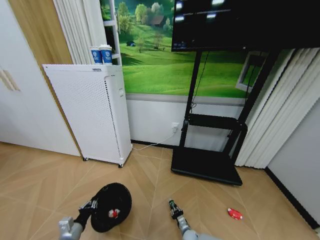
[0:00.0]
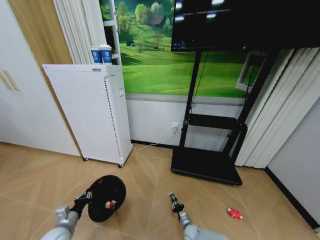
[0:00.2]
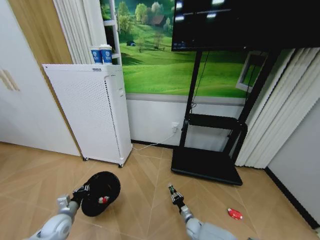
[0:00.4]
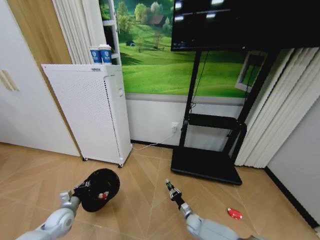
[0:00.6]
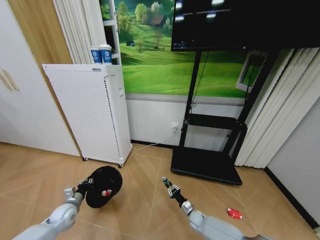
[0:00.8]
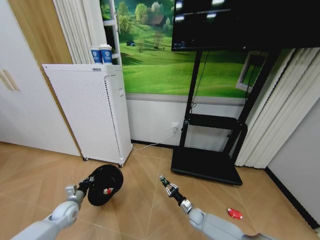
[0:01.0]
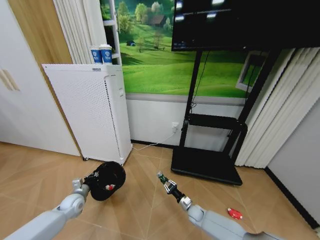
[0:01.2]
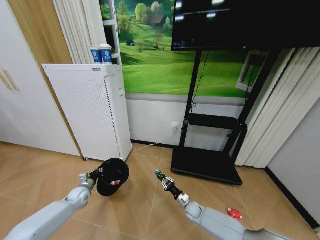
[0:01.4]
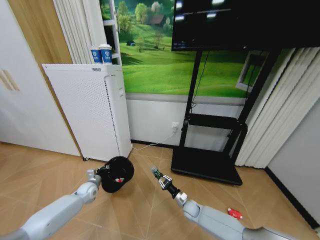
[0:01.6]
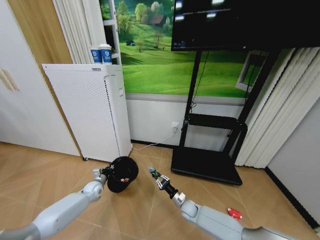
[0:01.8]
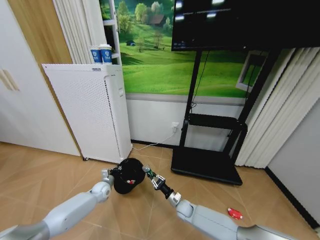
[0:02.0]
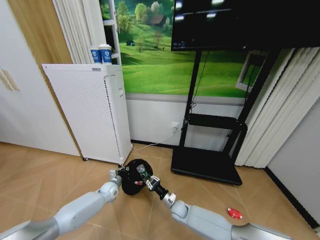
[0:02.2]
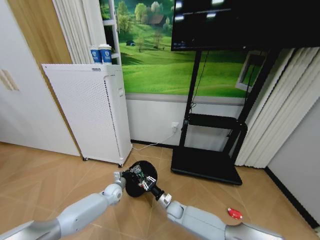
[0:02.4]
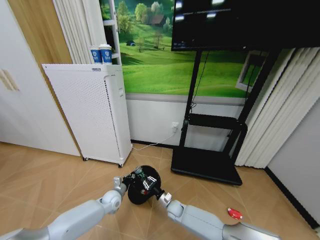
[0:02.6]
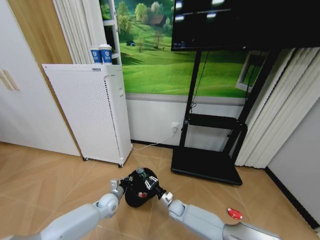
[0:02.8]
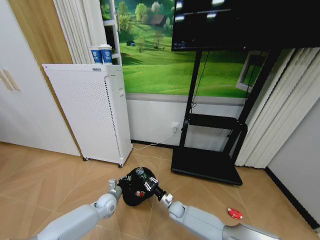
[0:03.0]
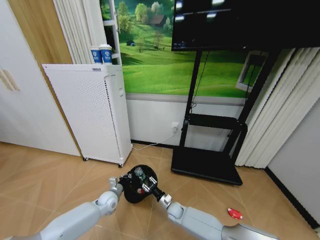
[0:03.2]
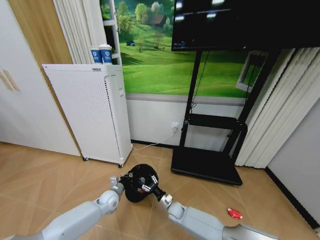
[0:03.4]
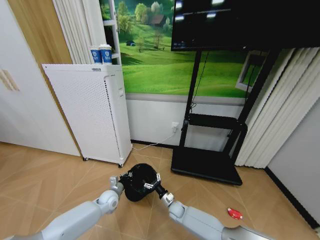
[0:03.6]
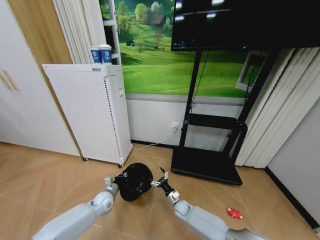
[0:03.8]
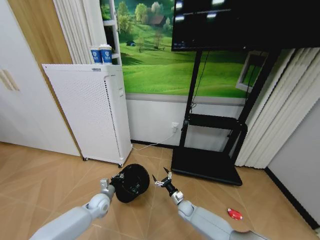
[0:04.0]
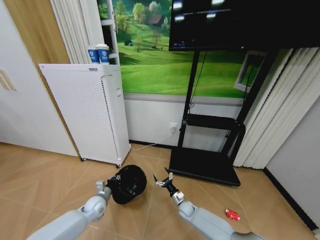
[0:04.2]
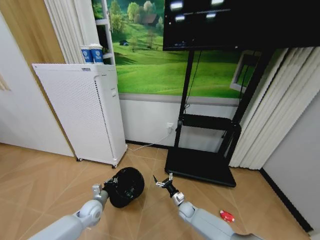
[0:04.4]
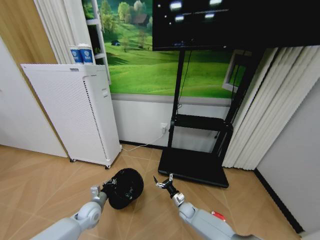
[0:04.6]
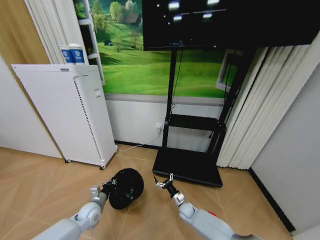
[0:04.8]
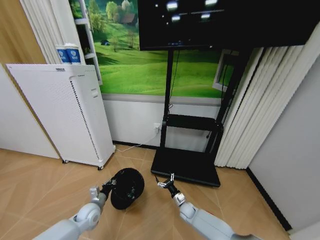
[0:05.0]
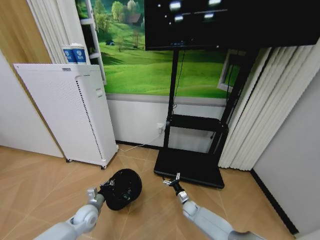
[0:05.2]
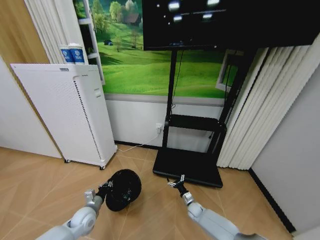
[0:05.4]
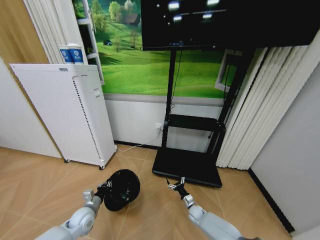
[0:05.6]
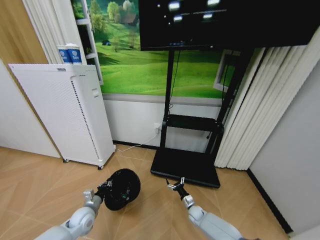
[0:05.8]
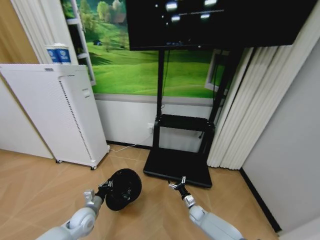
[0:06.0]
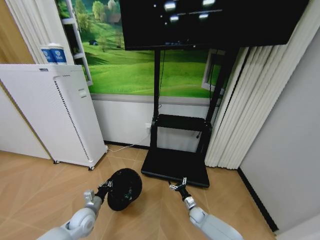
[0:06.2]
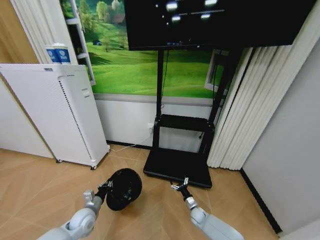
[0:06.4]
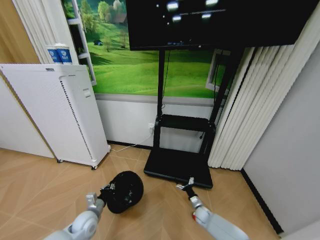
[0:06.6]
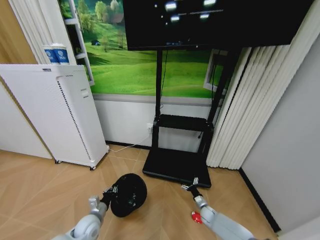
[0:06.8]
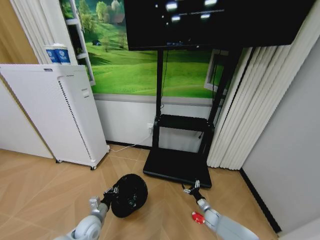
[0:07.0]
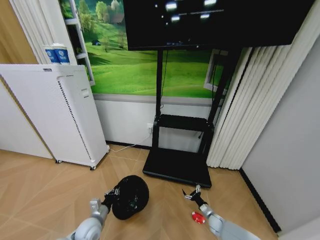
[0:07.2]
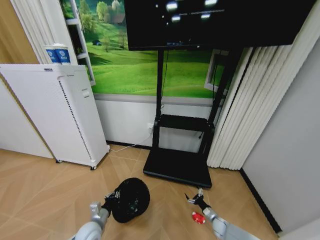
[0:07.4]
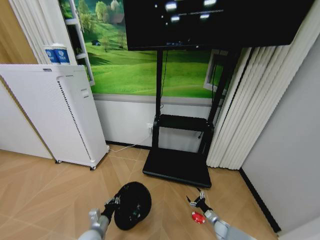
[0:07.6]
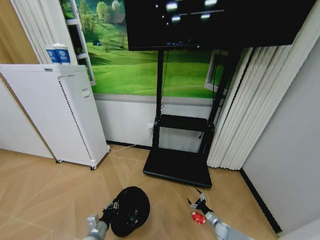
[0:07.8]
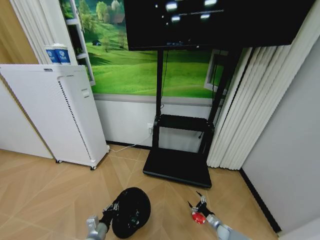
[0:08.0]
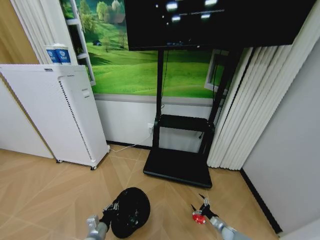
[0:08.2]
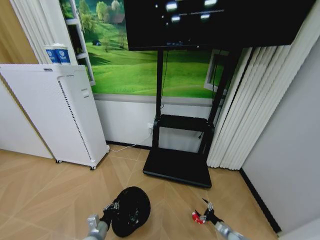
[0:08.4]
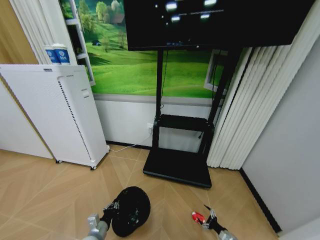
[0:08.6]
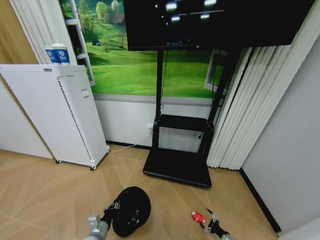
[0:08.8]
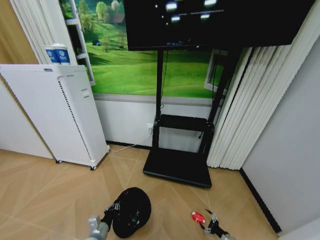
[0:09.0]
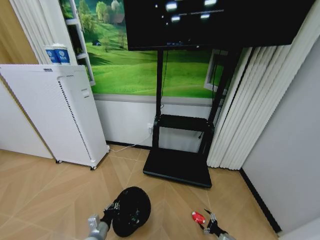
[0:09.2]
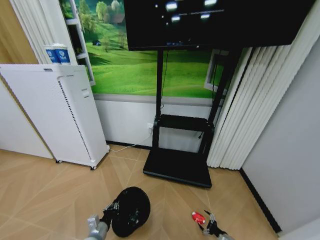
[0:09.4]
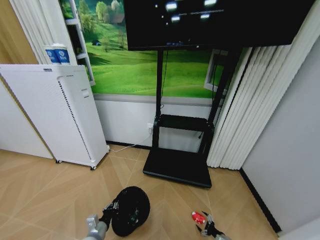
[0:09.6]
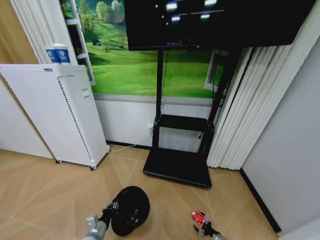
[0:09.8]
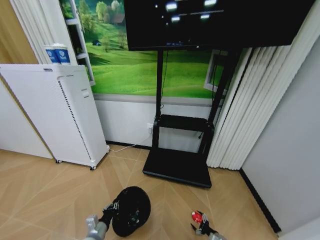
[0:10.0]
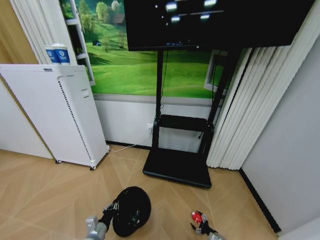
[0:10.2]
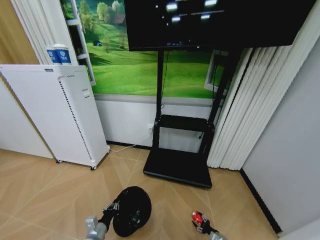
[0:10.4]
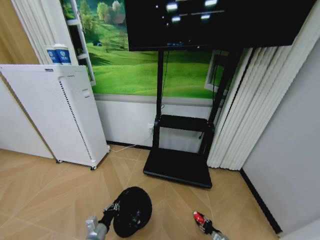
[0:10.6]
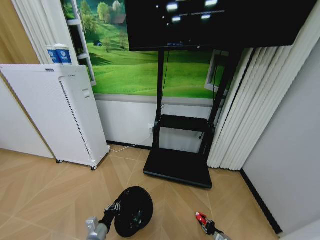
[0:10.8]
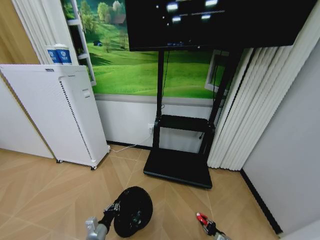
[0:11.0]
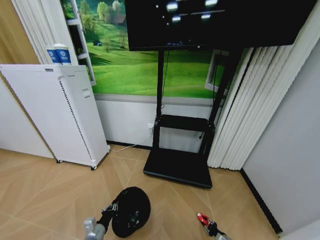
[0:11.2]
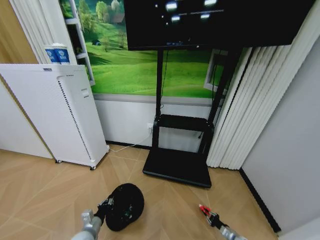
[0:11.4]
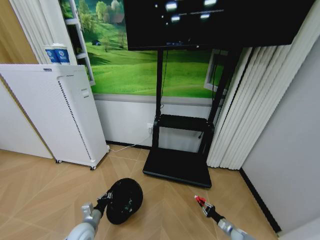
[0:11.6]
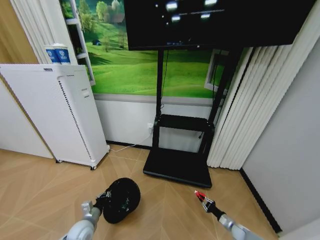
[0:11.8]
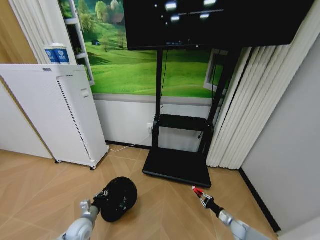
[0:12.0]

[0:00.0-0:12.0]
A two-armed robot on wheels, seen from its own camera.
Task of the whole recording: Pick up the trash bin and place the garbage on the floor into it.
0:00.0 to 0:01.6: The right gripper shifts approximately 15 cm upward and forward; the left gripper goes approximately 25 cm forward.
0:01.6 to 0:03.0: The left gripper travels to the right and backward by some 15 cm; the right gripper is displaced to the left by approximately 10 cm.
0:03.0 to 0:04.4: The left gripper heads to the left, covering about 5 cm, while the right gripper heads to the right, covering approximately 5 cm, and opens up.
0:04.4 to 0:06.0: The right gripper goes approximately 5 cm to the right.
0:06.0 to 0:07.6: The left gripper shifts about 10 cm backward and to the right; the right gripper heads to the right and backward, covering about 15 cm.
0:07.6 to 0:09.0: The right gripper travels backward and to the right by roughly 10 cm.
0:09.0 to 0:10.4: The right gripper moves roughly 5 cm.
0:10.4 to 0:12.0: The right gripper goes roughly 15 cm upward and forward, and closes its fingers. The left gripper travels forward and to the left by roughly 10 cm.

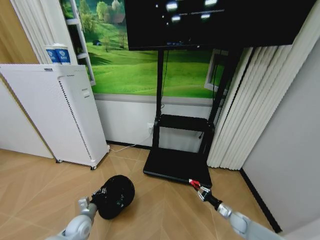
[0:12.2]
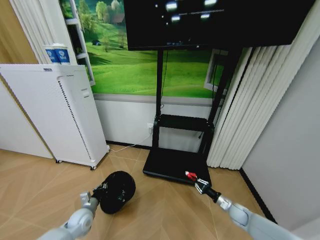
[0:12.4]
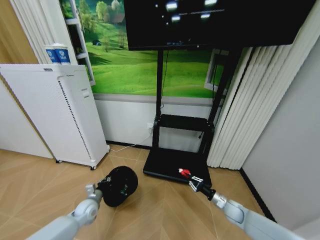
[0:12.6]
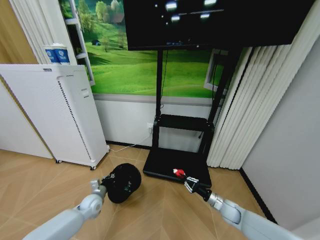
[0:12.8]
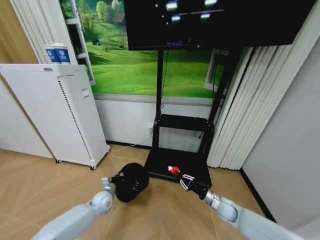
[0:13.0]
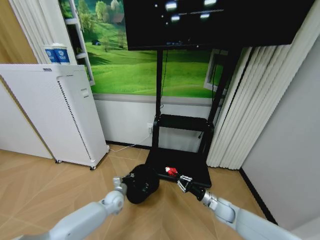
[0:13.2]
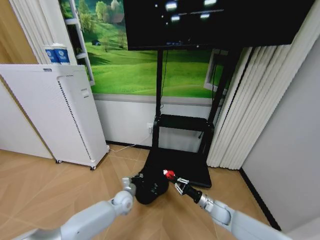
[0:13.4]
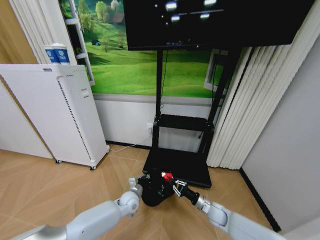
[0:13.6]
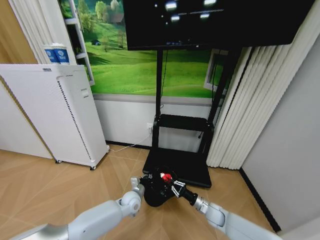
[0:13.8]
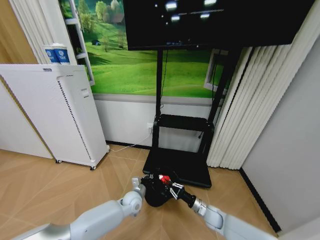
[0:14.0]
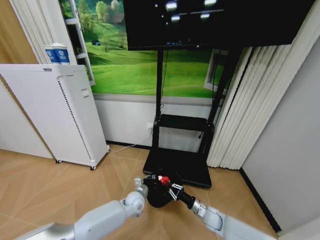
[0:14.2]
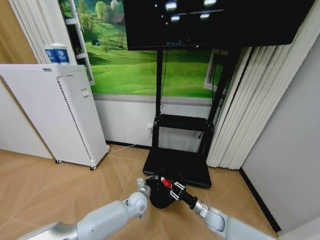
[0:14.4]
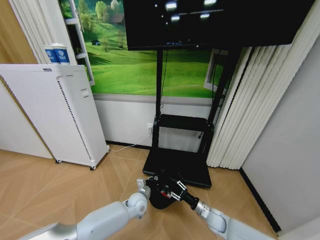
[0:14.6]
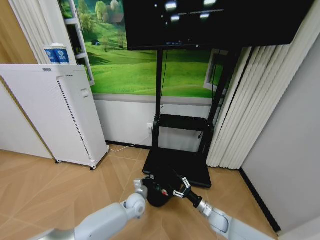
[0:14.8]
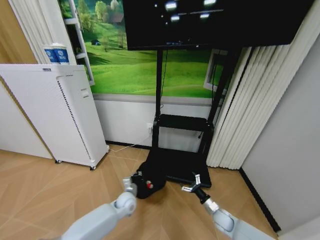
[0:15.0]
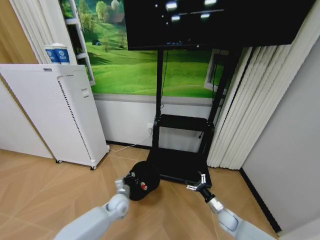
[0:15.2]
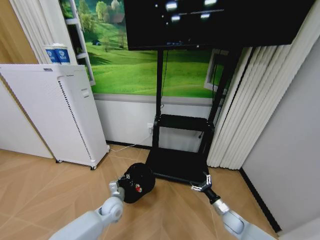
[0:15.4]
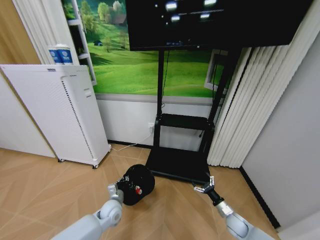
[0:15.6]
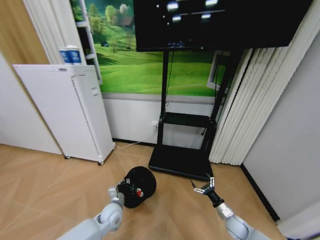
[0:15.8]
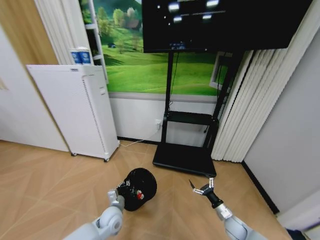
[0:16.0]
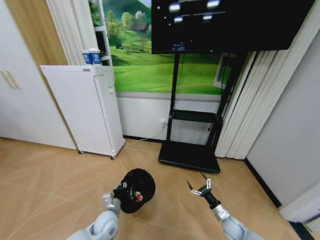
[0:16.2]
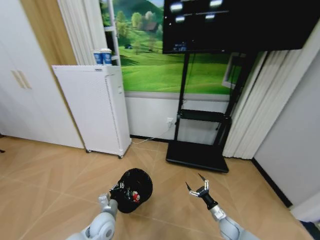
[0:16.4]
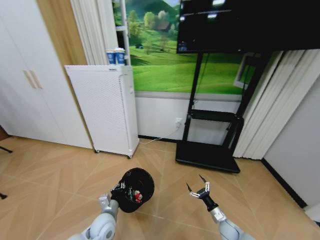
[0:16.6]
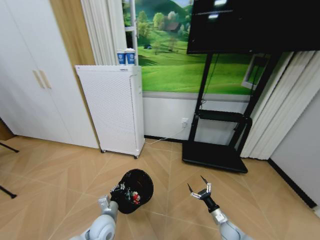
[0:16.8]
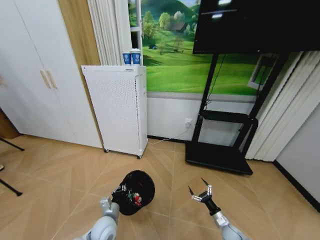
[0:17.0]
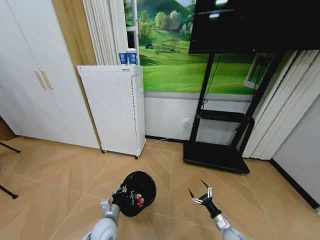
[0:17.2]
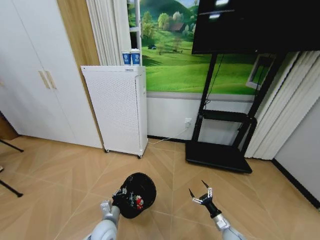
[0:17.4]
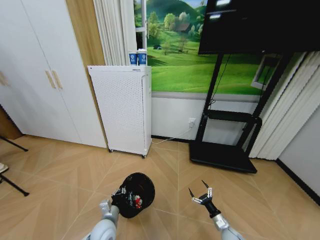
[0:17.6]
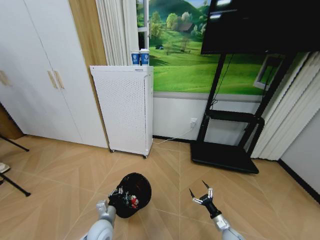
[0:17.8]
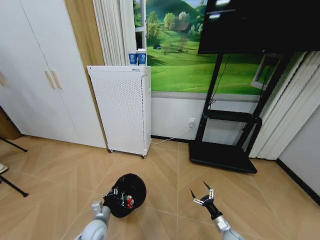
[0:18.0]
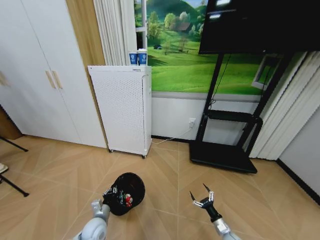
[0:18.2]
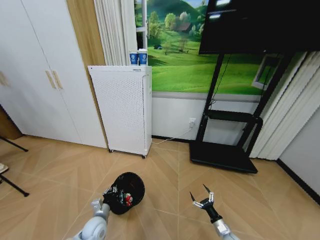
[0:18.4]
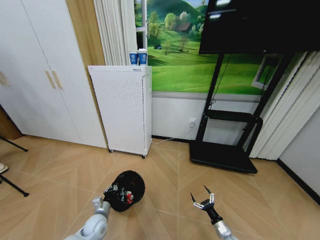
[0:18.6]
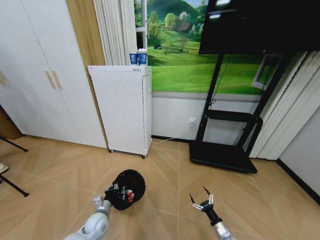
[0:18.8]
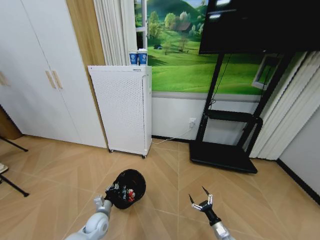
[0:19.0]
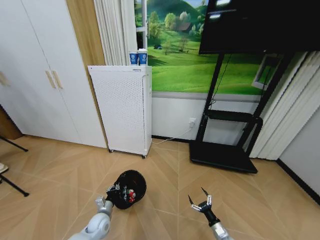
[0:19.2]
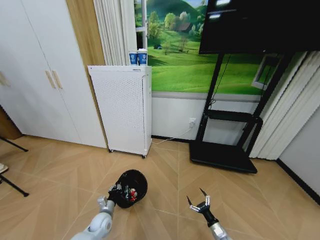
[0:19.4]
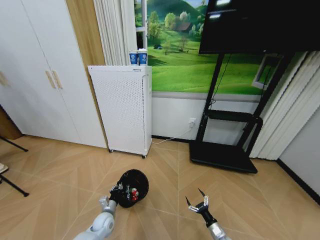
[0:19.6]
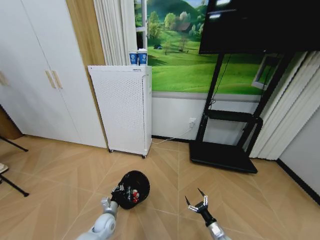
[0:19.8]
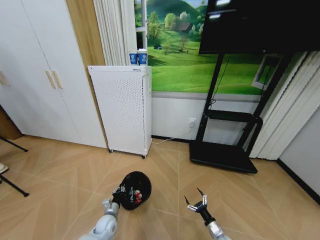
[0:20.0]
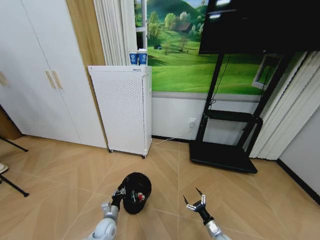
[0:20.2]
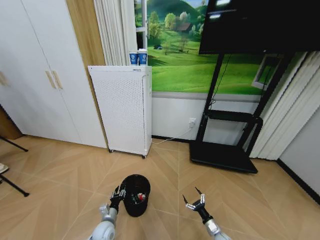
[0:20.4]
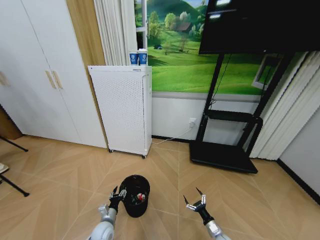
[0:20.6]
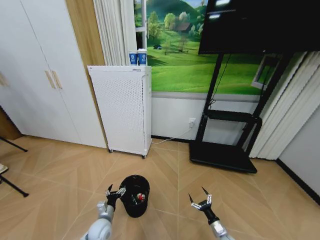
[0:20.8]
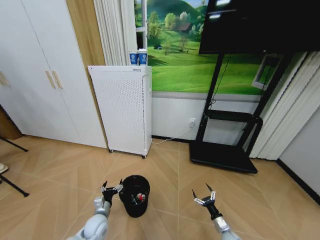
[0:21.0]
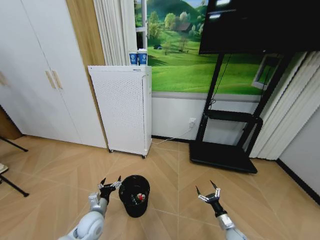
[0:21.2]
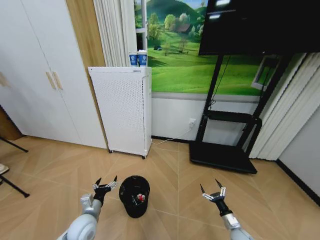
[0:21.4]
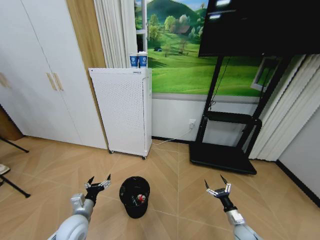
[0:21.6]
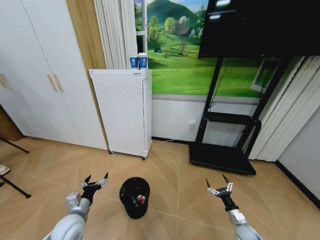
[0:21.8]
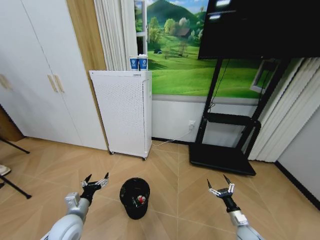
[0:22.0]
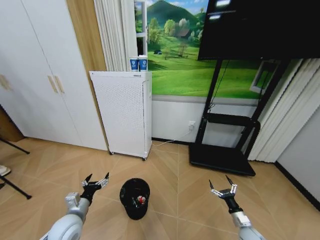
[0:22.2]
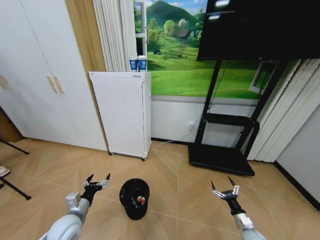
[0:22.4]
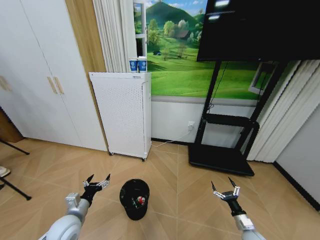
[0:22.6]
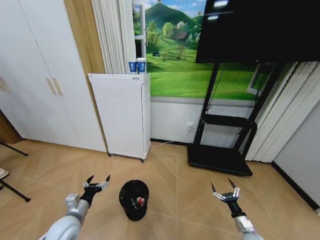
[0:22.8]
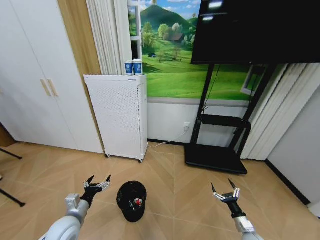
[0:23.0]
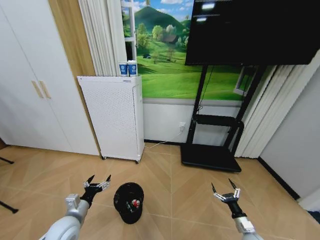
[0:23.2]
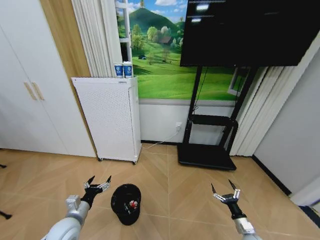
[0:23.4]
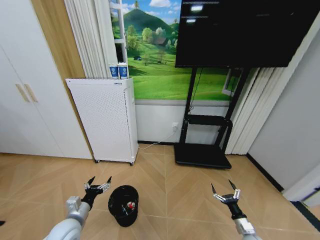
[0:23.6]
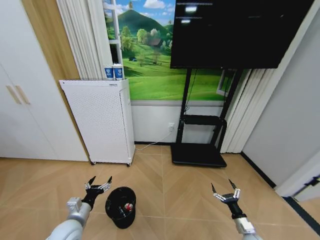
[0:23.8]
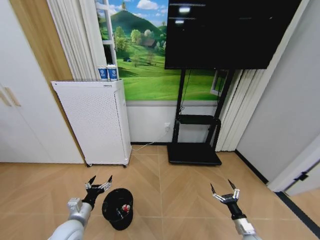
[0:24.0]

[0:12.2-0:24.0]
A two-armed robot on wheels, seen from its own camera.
Task of the whole recording: Pick up the trash bin and place the garbage on the floor into it.
0:12.2 to 0:13.6: The right gripper is displaced to the left and upward by approximately 15 cm, while the left gripper goes roughly 20 cm to the right.
0:13.6 to 0:15.2: The right gripper ends up approximately 5 cm from where it was, and opens its fingers.
0:15.2 to 0:16.6: The right gripper moves roughly 5 cm, while the left gripper moves backward and to the left, some 10 cm.
0:16.6 to 0:18.2: The left gripper heads to the left and downward, covering some 5 cm. The right gripper changes place by approximately 5 cm.
0:18.2 to 0:19.6: The left gripper travels downward by approximately 5 cm.
0:19.6 to 0:21.0: The left gripper heads upward, covering about 5 cm, and opens.
0:21.0 to 0:22.6: The left gripper goes some 15 cm upward and to the left. Meanwhile the right gripper is displaced upward and to the right by approximately 10 cm.
